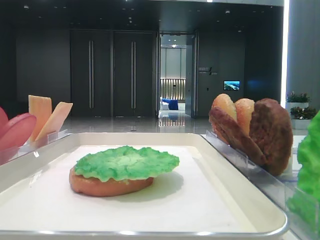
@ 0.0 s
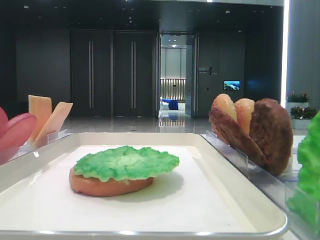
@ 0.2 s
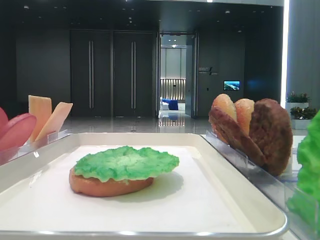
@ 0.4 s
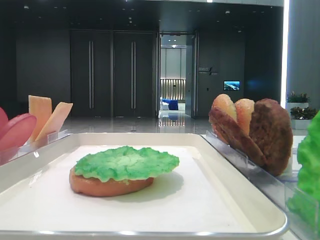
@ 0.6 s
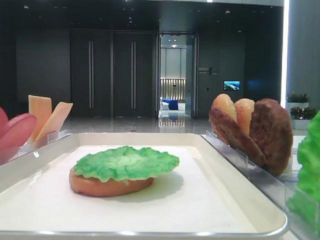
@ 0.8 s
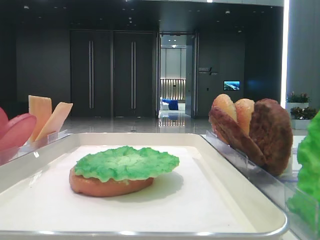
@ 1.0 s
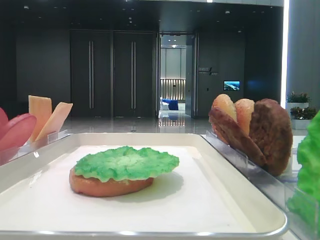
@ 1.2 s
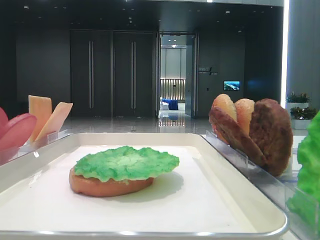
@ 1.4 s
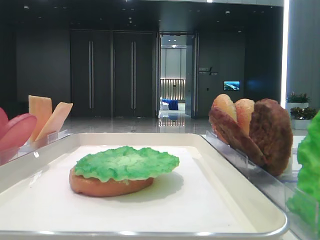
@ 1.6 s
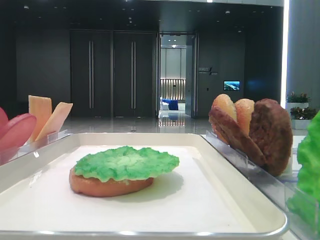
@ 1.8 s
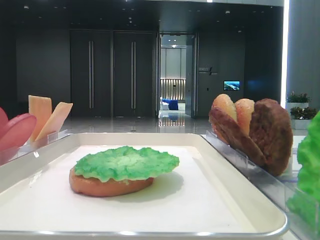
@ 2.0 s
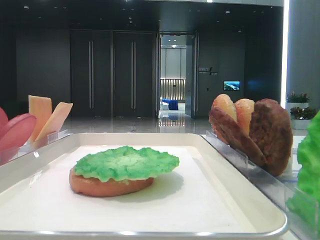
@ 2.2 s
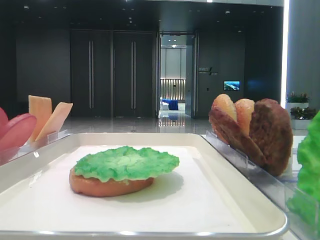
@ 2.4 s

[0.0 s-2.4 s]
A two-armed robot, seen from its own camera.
1.2 to 2.4 s: The two grippers keep their place.
